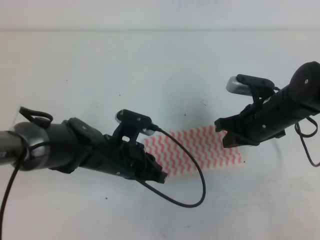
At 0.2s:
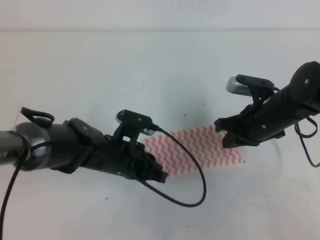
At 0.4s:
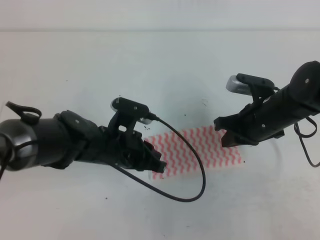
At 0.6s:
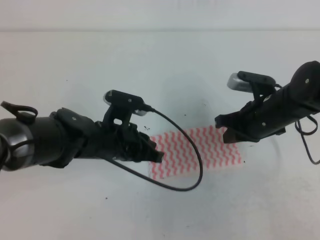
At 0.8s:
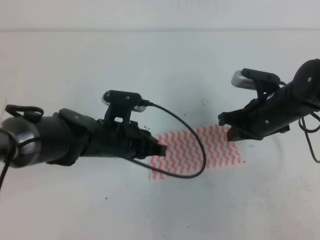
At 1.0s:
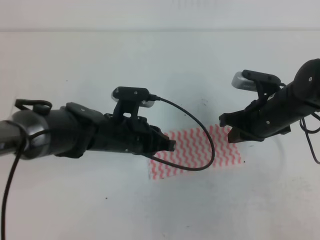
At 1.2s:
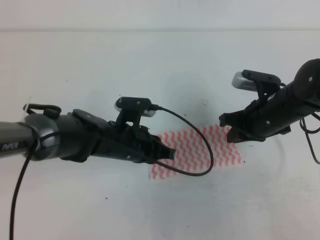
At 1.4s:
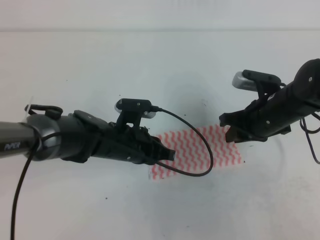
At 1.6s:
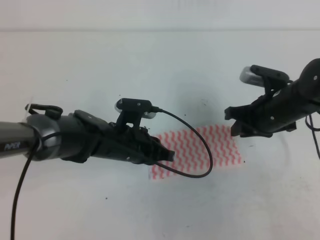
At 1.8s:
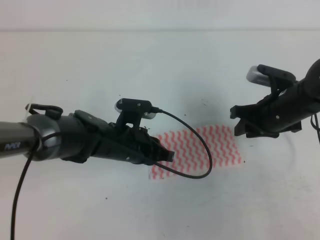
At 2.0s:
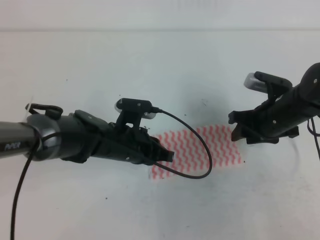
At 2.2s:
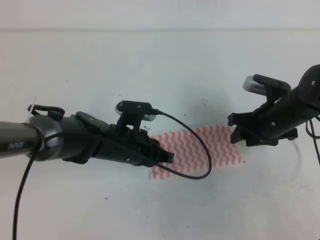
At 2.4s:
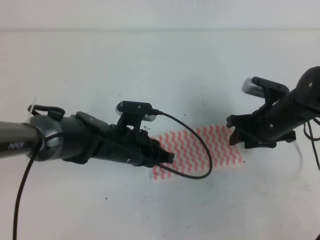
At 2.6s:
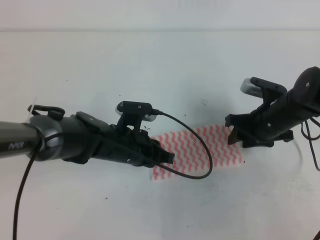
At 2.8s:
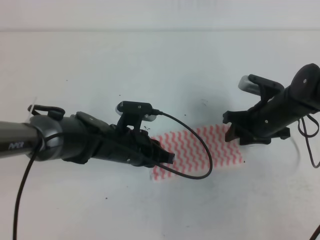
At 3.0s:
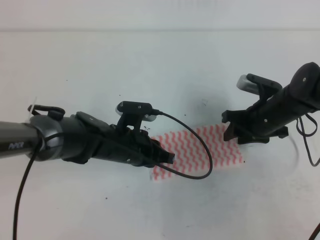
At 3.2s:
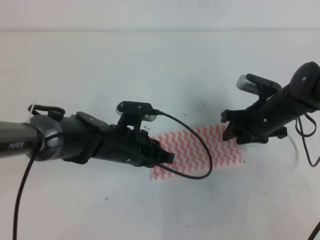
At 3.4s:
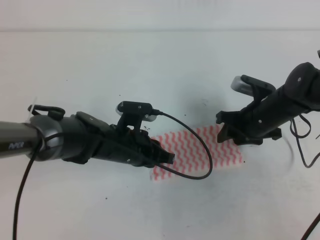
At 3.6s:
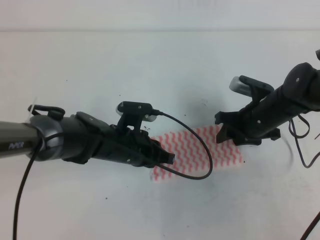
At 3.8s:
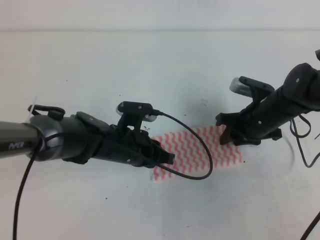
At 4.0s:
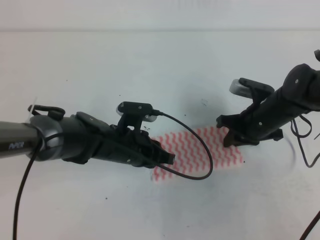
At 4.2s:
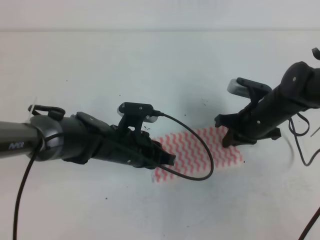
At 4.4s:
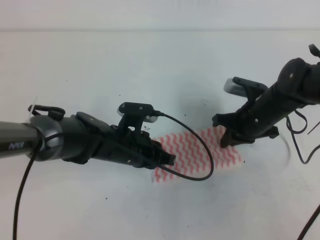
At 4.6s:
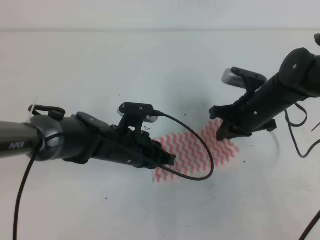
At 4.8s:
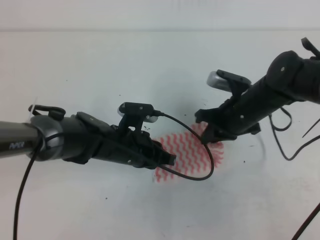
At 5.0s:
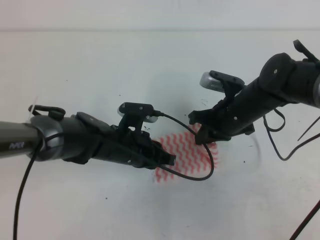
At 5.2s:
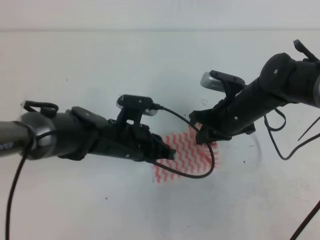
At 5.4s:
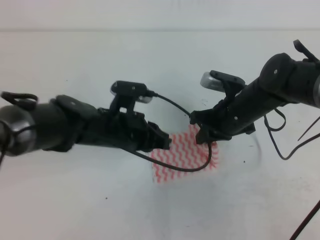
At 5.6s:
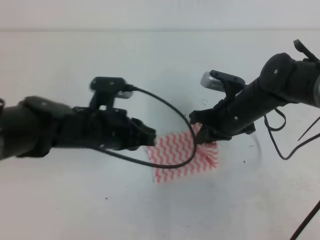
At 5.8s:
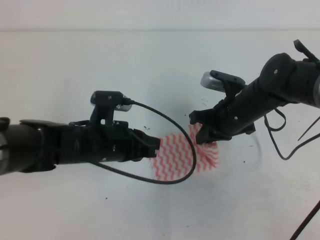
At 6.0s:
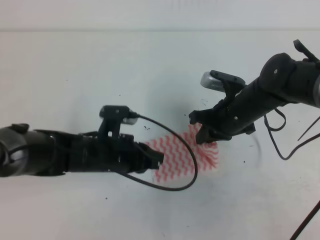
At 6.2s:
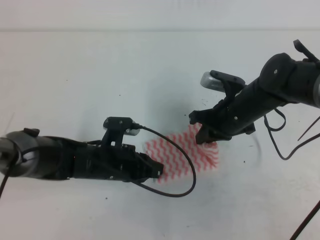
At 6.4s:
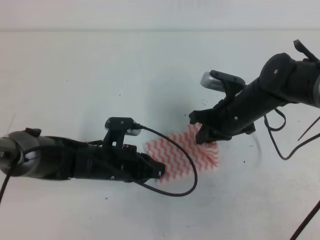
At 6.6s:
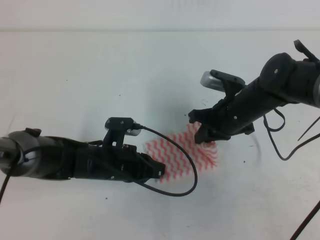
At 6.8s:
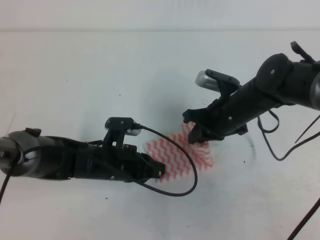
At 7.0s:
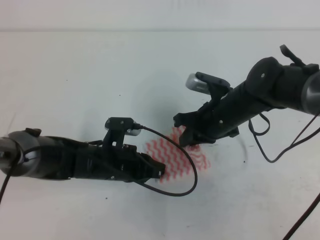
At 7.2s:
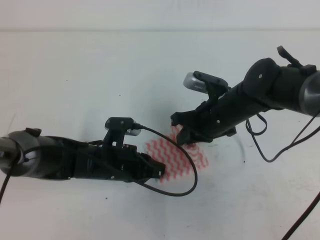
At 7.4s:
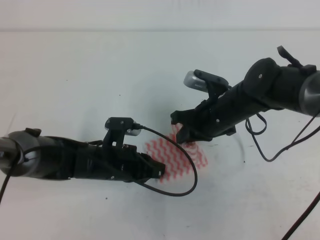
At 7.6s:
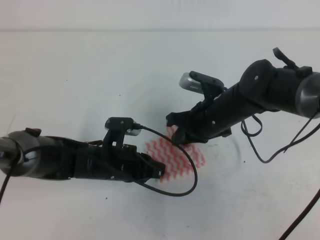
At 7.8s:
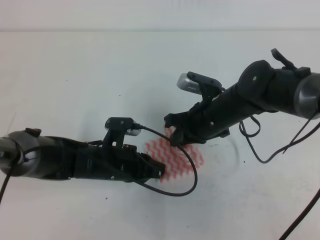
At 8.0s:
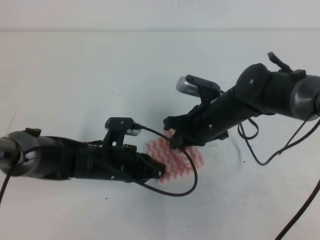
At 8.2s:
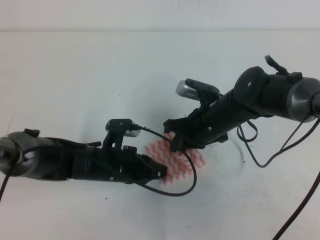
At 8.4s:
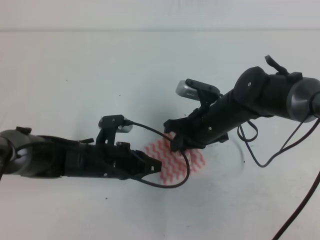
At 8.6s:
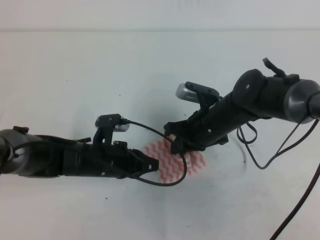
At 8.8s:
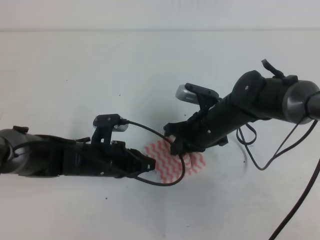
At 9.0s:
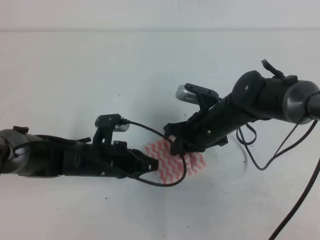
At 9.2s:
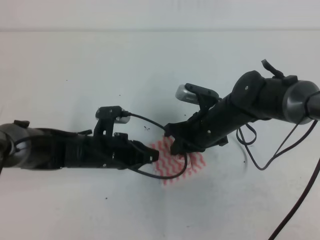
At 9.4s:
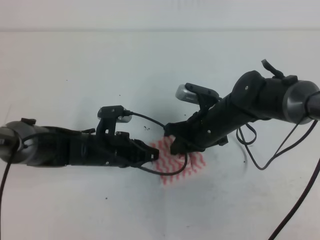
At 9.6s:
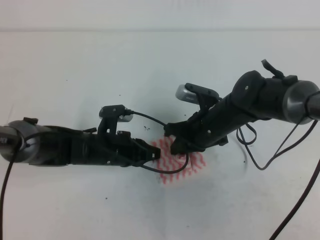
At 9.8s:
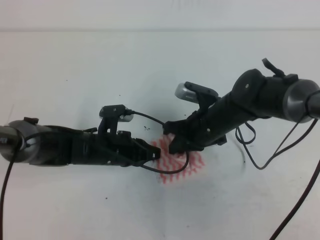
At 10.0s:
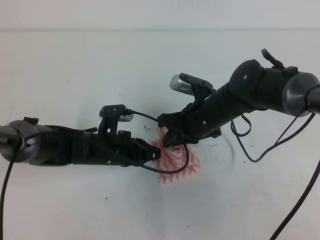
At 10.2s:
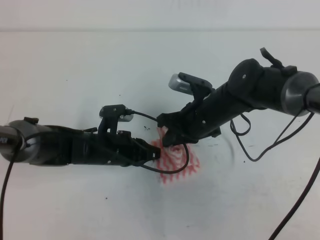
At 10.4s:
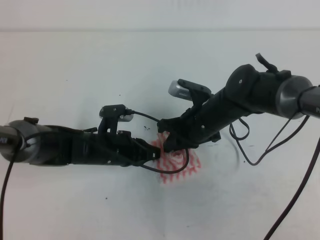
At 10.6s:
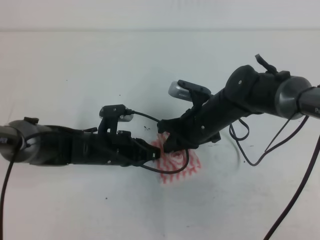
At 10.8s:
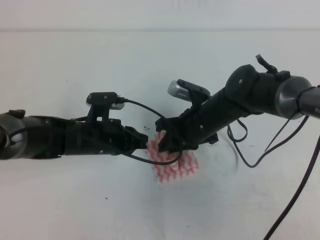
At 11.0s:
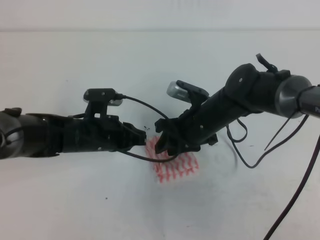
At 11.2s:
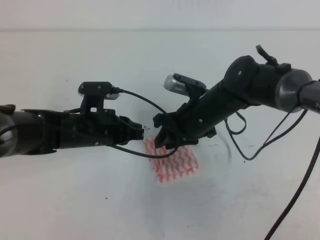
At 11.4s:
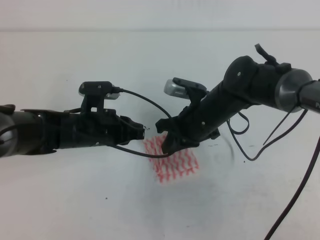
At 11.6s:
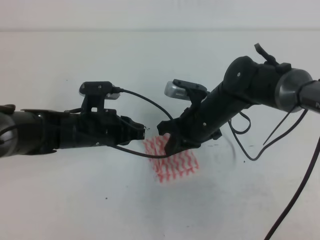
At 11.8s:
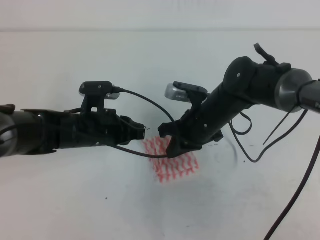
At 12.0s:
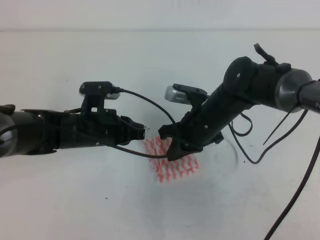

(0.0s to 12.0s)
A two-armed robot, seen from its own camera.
0.0s - 1.6s: The right gripper opens up.
1.6s - 3.0s: The right gripper opens up.
3.0s - 4.4s: The right gripper closes up.
4.4s - 6.0s: The right gripper shifts by roughly 5 cm.
6.0s - 10.4s: The grippers move only a little.
10.4s - 12.0s: The left gripper is displaced upward by about 5 cm. Meanwhile the right gripper opens and closes again.

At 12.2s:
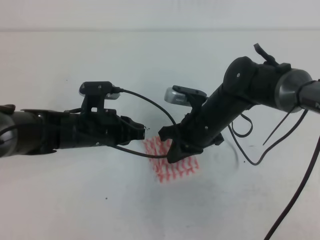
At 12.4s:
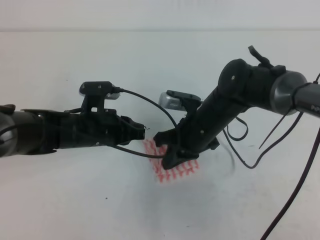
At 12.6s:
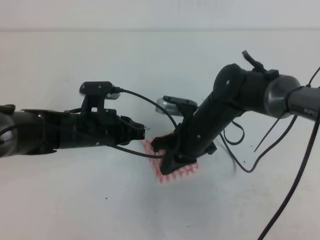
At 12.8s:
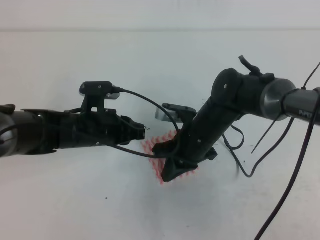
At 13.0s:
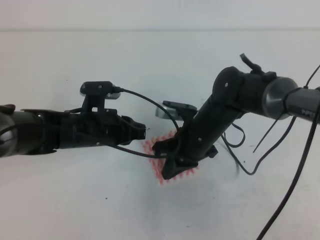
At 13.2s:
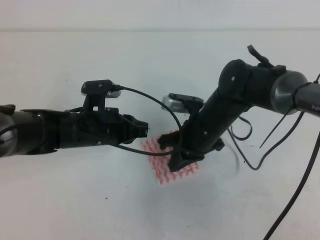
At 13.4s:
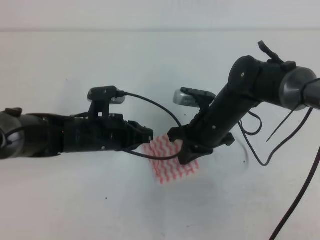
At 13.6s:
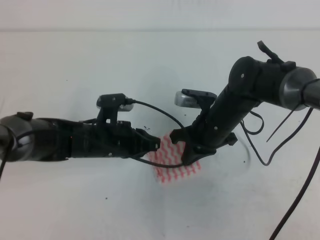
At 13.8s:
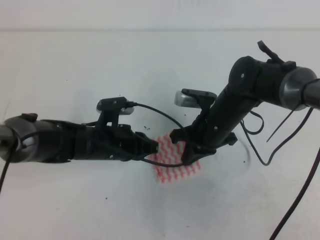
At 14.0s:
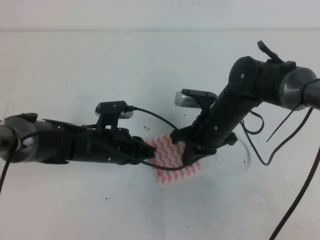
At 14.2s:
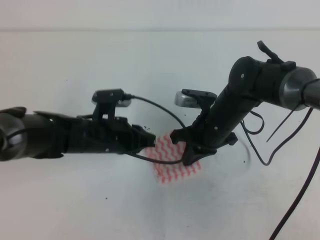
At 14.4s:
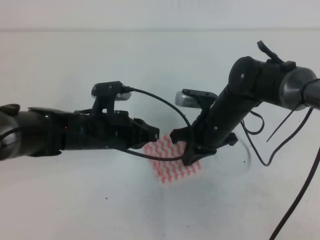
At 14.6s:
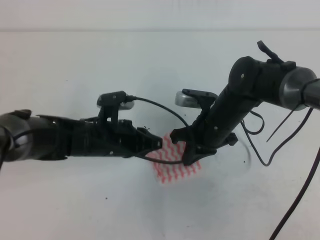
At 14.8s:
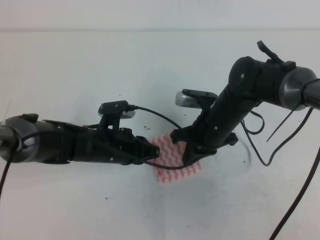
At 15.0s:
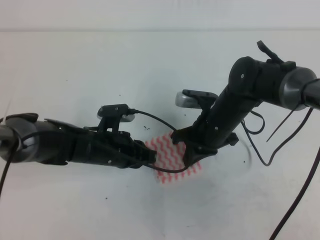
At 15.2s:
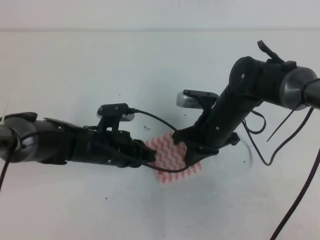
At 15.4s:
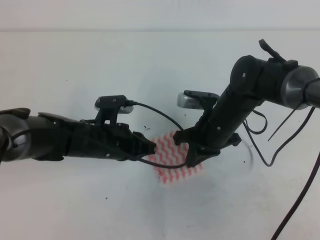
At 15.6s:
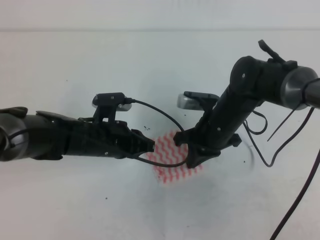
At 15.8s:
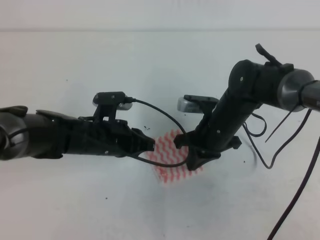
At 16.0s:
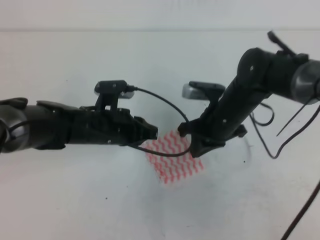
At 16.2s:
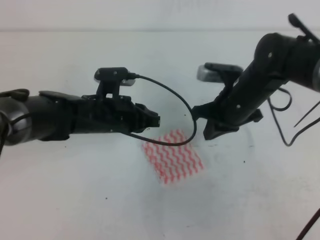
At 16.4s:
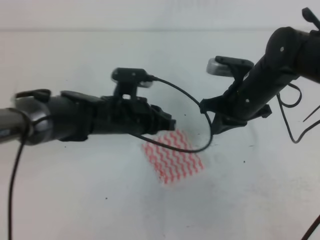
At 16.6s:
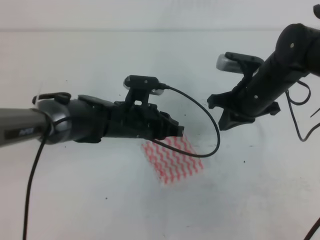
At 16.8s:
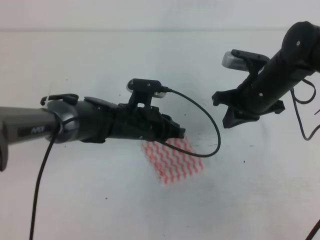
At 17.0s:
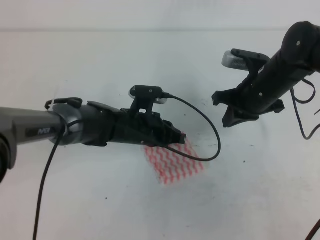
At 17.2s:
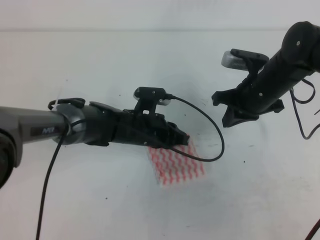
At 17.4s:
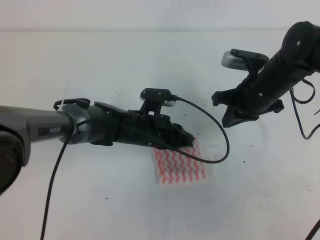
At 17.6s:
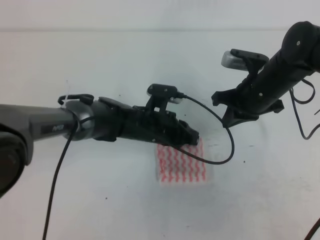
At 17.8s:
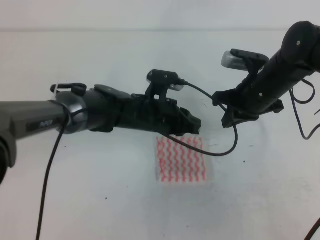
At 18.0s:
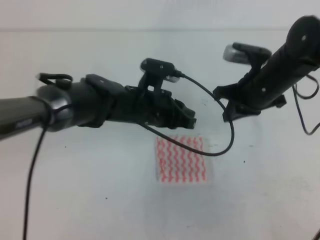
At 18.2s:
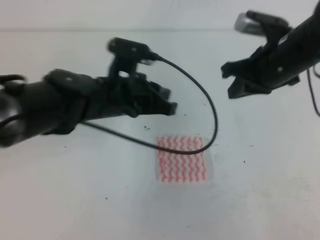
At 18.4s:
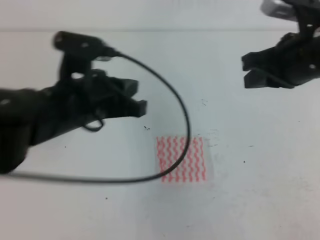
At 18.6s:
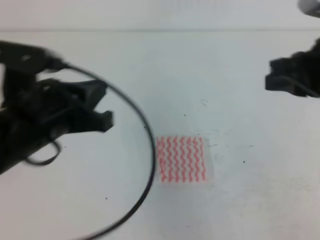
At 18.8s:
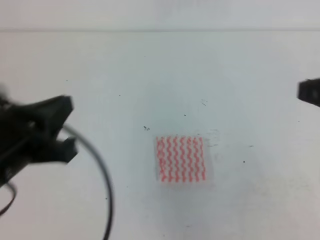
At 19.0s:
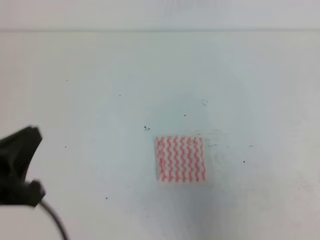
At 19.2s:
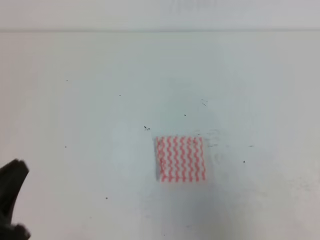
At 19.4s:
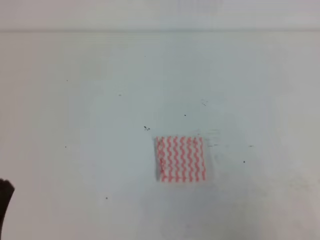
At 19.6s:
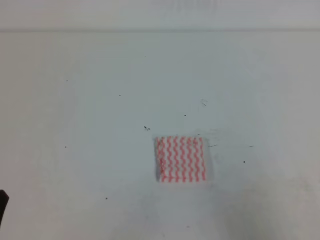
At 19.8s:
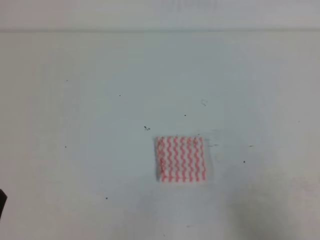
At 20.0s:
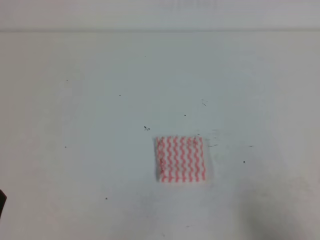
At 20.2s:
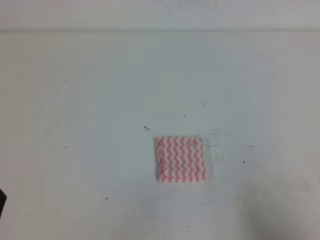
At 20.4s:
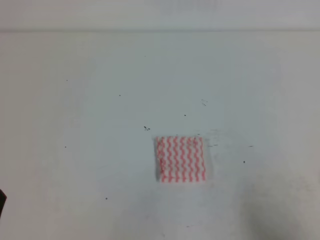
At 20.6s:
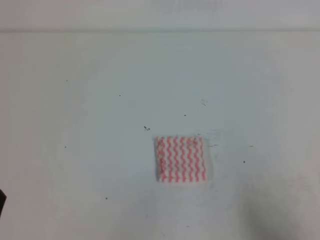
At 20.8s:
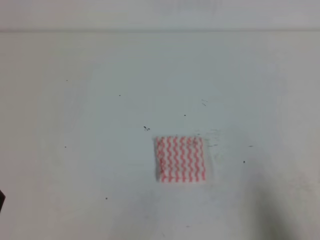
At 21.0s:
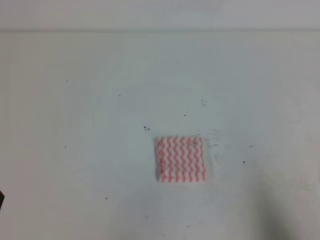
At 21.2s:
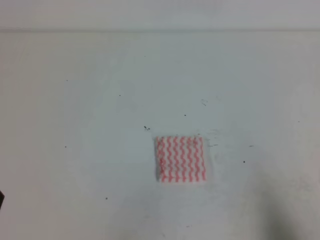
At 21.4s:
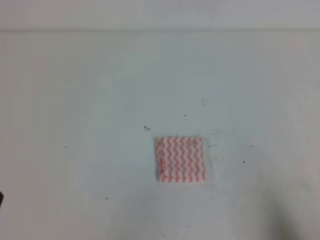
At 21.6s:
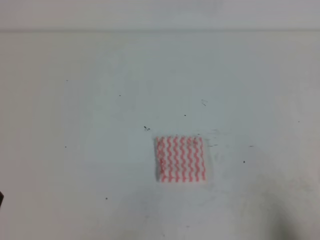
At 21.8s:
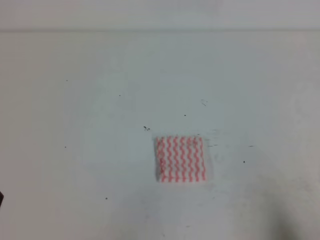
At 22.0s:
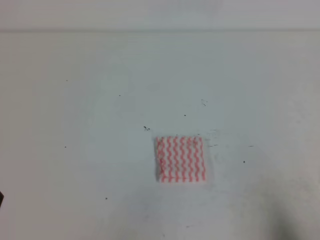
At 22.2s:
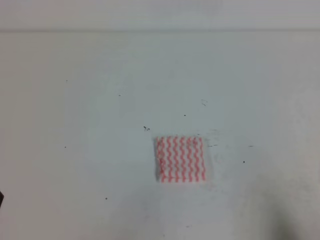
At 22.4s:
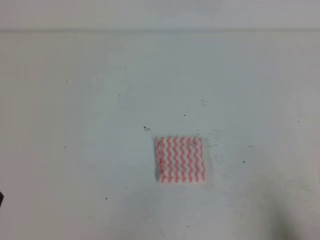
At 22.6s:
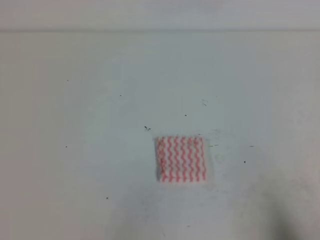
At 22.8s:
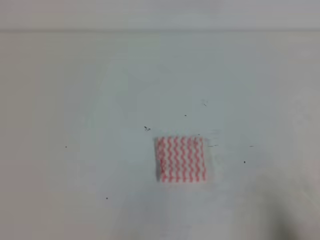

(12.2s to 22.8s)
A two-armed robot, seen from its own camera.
Step, 12.2s - 22.8s: Fold the towel.
12.2s - 15.2s: The grippers move only a little.
15.2s - 16.8s: The left gripper moves to the right, some 5 cm. The right gripper is displaced to the right and upward by approximately 10 cm.
16.8s - 18.2s: Both grippers travel together upward, about 10 cm.
18.2s - 19.8s: The left gripper shifts approximately 30 cm backward and to the left; the right gripper moves backward, approximately 30 cm.
19.8s - 21.2s: The right gripper ends up approximately 5 cm from where it was.
